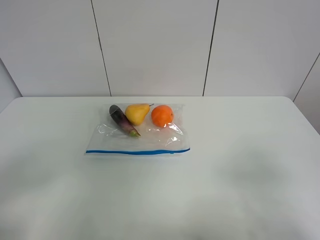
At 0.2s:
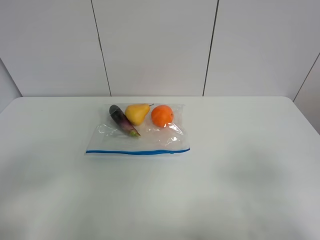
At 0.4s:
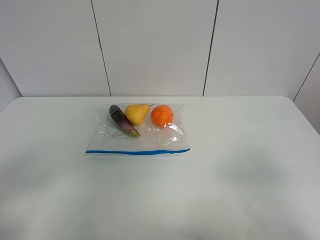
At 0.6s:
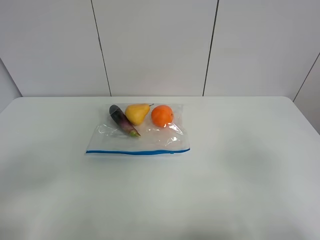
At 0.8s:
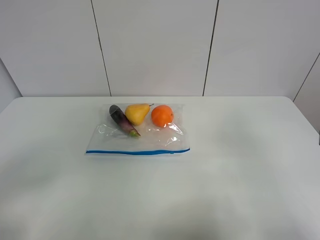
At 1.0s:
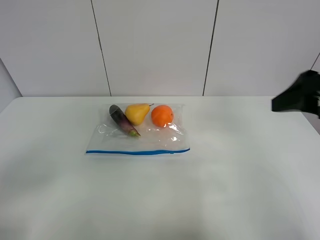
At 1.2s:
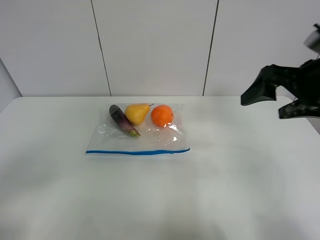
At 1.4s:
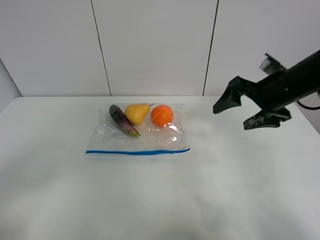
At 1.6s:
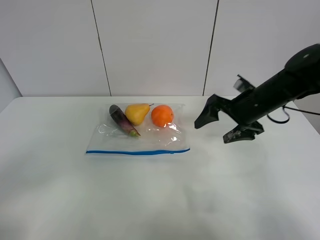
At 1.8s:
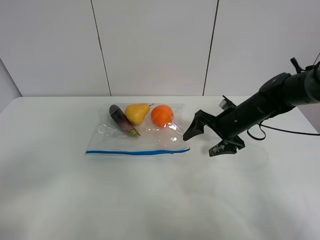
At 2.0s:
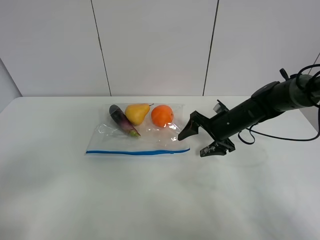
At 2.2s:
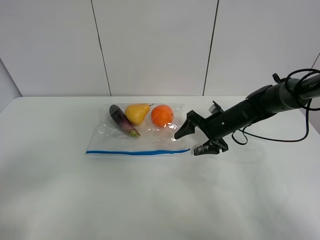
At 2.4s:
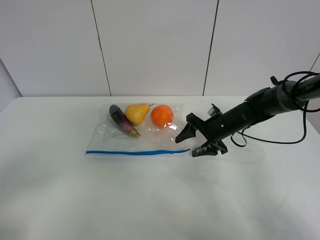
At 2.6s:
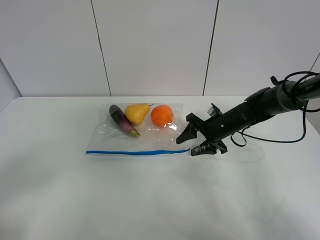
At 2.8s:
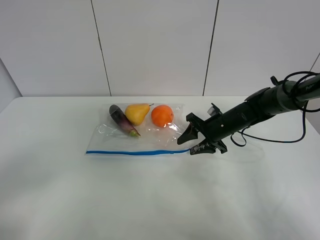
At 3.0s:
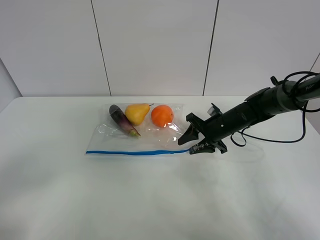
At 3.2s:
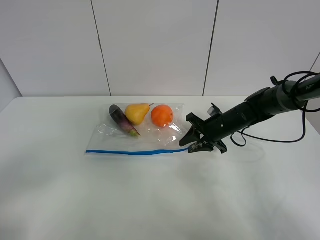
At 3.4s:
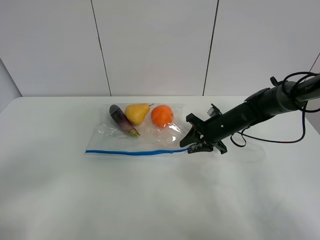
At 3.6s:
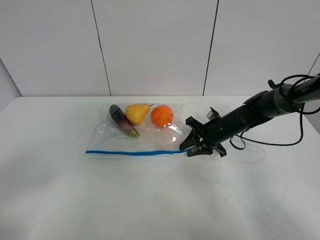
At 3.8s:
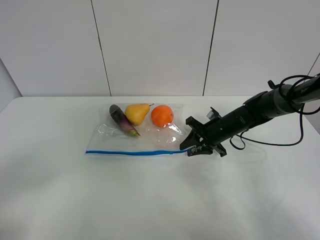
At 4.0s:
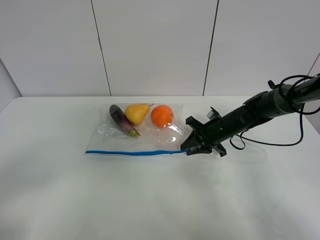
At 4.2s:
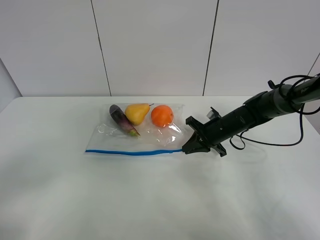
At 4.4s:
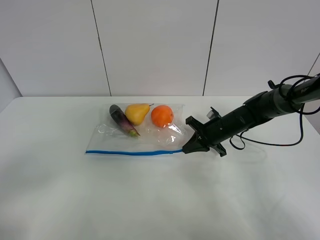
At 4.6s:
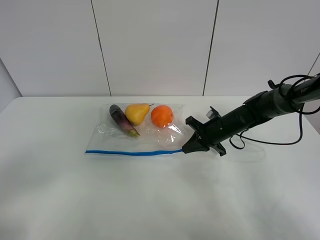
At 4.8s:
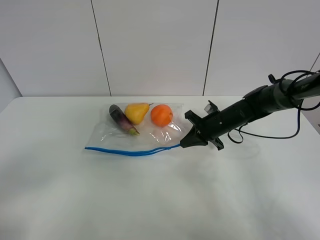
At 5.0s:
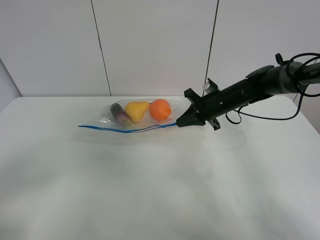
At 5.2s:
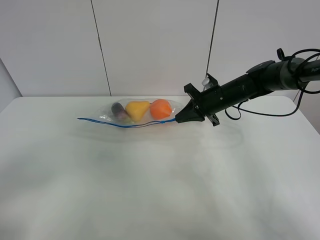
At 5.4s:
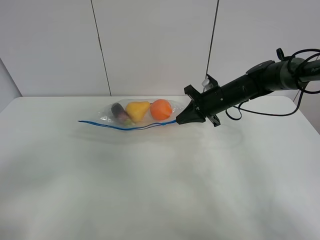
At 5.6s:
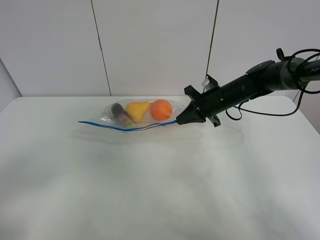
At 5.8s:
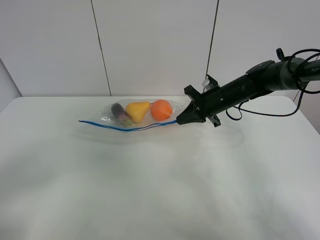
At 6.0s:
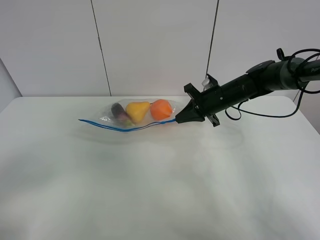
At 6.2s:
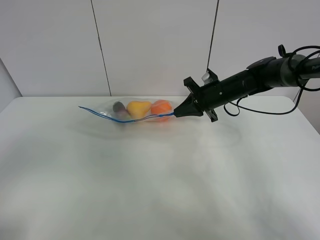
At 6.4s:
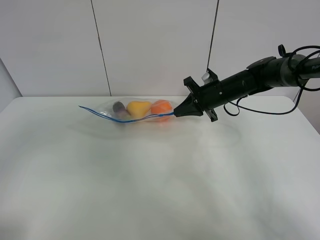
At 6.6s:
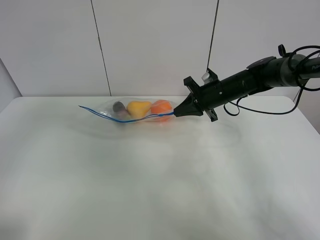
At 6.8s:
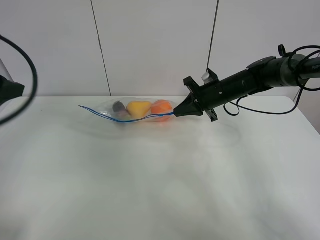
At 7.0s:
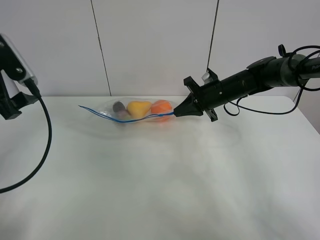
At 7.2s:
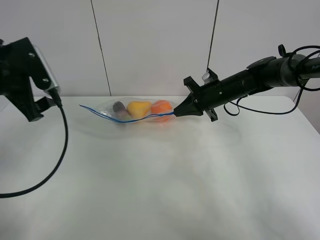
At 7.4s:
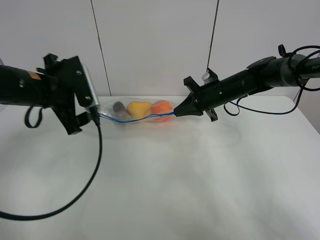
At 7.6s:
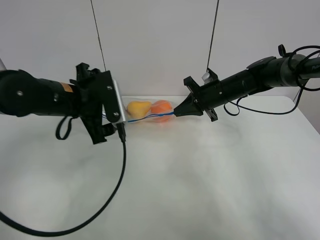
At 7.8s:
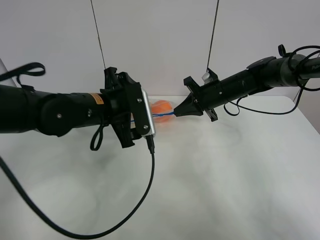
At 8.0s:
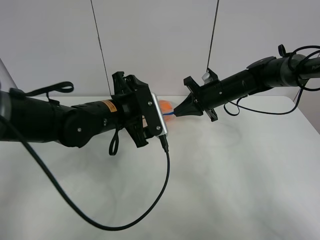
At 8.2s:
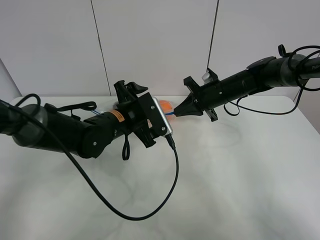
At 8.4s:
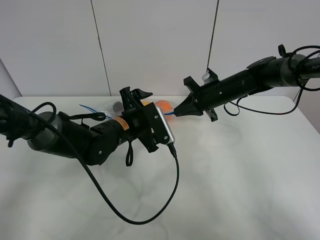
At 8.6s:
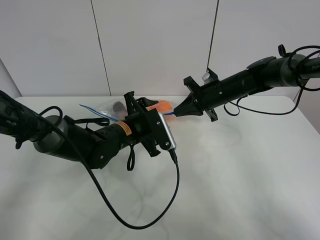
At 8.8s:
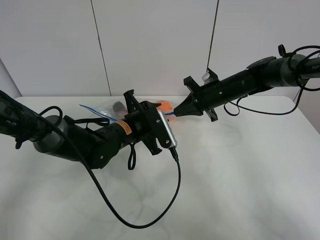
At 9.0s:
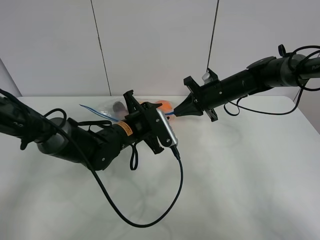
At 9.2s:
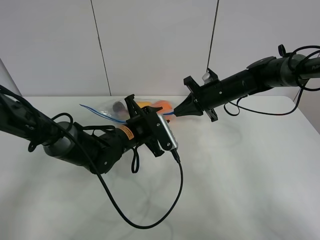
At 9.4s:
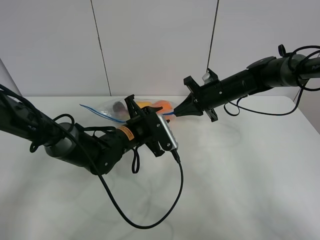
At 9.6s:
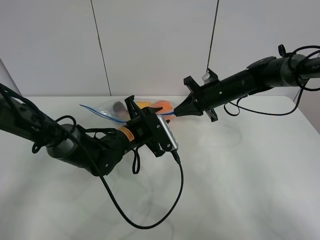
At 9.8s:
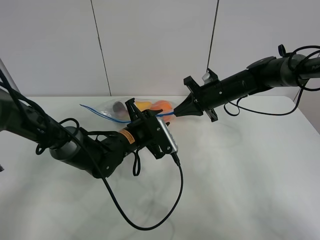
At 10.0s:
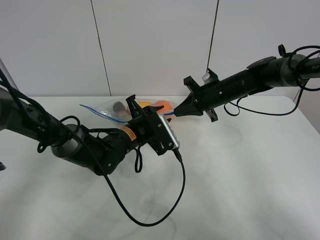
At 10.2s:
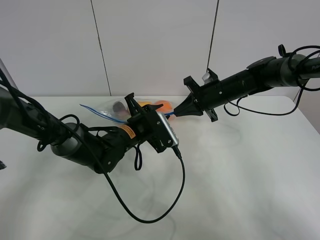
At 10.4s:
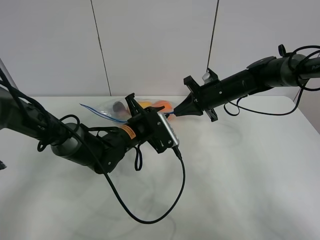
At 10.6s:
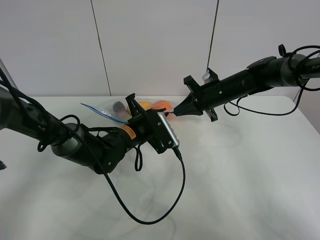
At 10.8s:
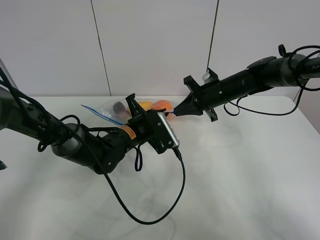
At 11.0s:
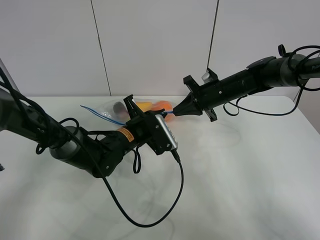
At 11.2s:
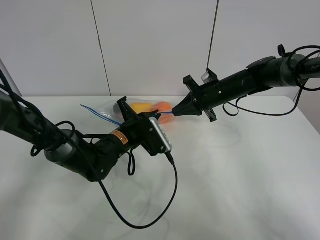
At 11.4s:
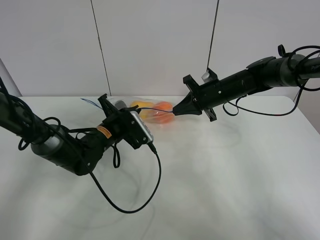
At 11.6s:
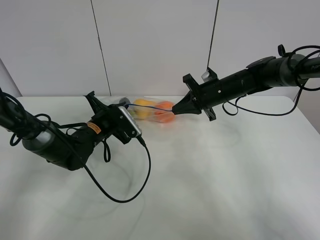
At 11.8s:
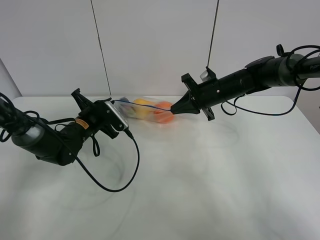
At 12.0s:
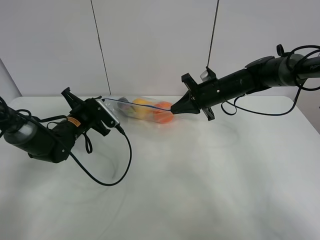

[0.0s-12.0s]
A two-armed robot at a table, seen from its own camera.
Step, 0.0s to 4.2s: Grasp the fruit bag with right gripper.
Step, 4.4s to 5.6s: Lift the fruit bag with your right gripper.
0.0s to 1.6s: The right gripper goes some 35 cm forward.
1.6s to 3.0s: The right gripper shifts approximately 10 cm downward, and closes up.
3.0s to 4.4s: The right gripper closes up.
4.4s to 6.0s: The right gripper is displaced upward by about 10 cm.
6.0s to 7.6s: The left gripper shifts approximately 35 cm forward and to the right.
7.6s to 9.0s: The left gripper heads downward and to the right, covering roughly 15 cm, and closes up.
9.0s to 10.4s: The grippers make only small movements.
10.4s to 12.0s: The left gripper shifts about 15 cm to the left.

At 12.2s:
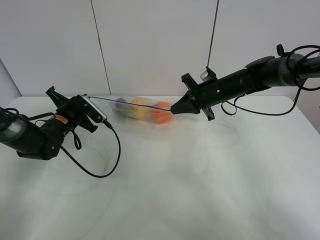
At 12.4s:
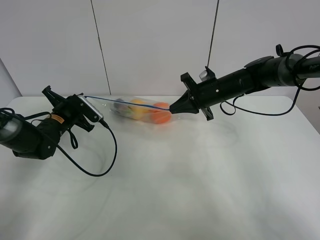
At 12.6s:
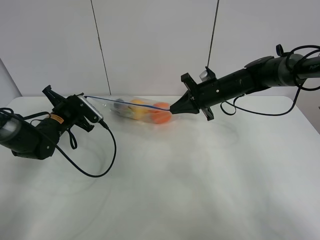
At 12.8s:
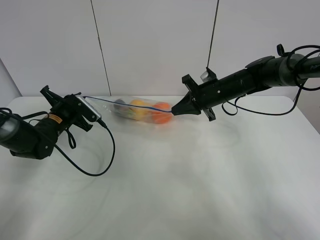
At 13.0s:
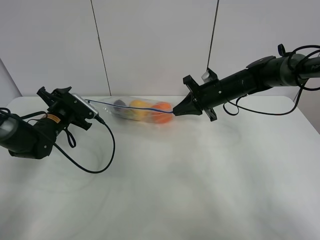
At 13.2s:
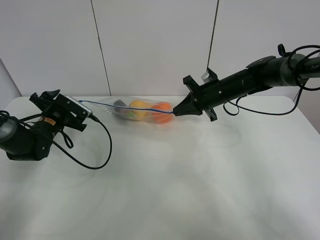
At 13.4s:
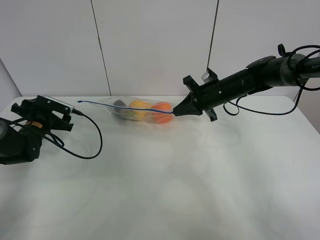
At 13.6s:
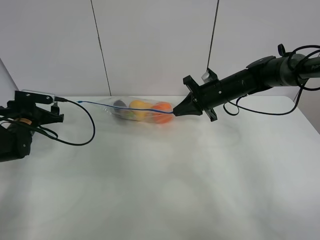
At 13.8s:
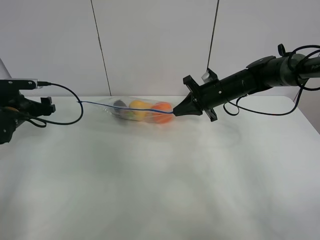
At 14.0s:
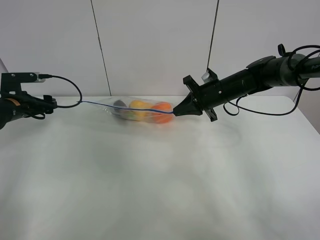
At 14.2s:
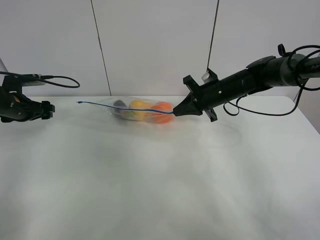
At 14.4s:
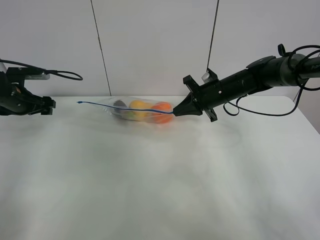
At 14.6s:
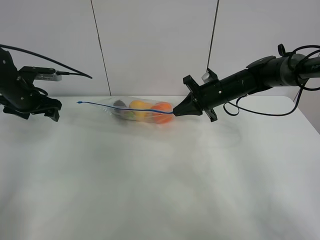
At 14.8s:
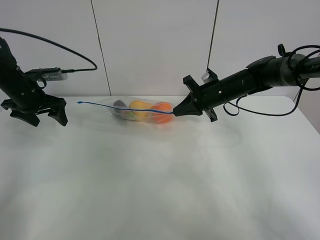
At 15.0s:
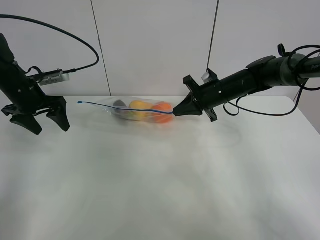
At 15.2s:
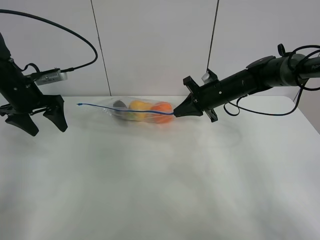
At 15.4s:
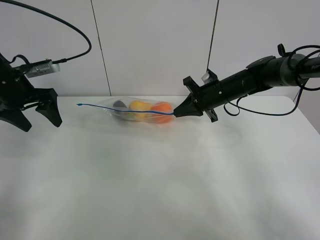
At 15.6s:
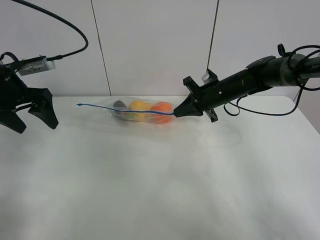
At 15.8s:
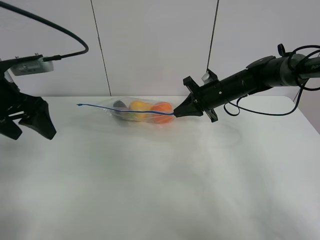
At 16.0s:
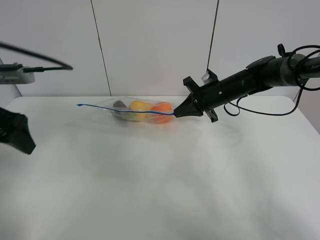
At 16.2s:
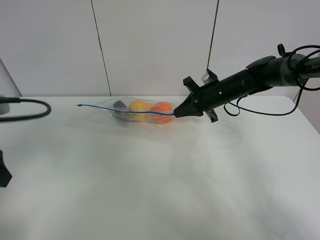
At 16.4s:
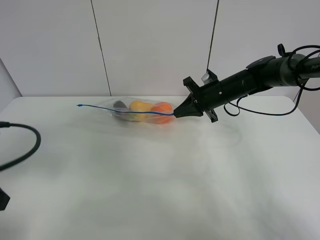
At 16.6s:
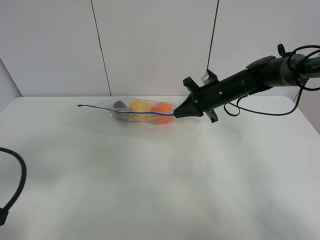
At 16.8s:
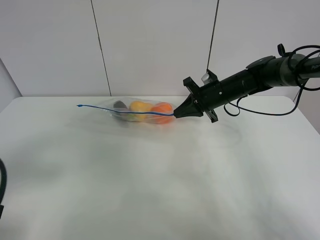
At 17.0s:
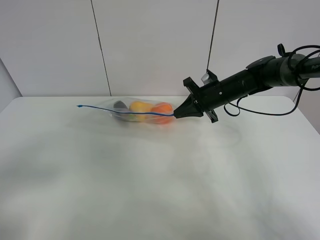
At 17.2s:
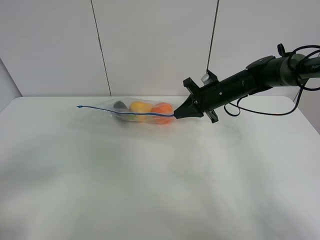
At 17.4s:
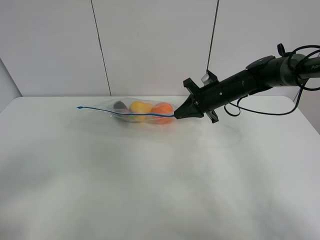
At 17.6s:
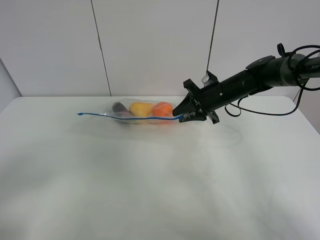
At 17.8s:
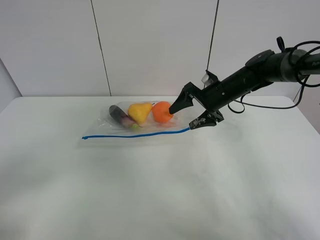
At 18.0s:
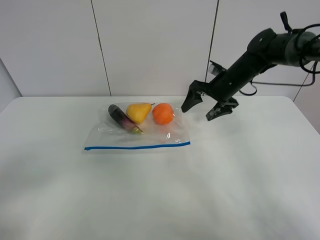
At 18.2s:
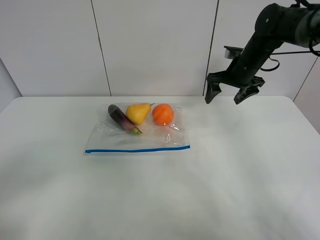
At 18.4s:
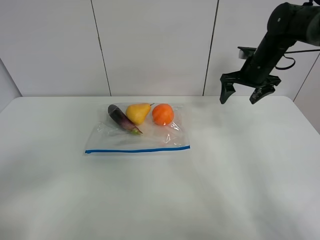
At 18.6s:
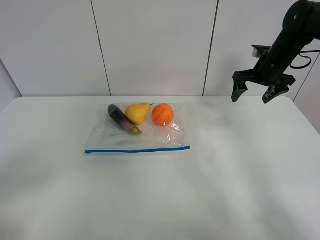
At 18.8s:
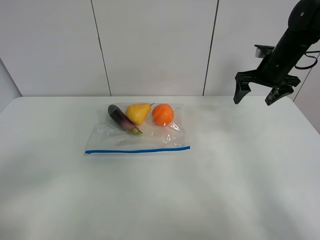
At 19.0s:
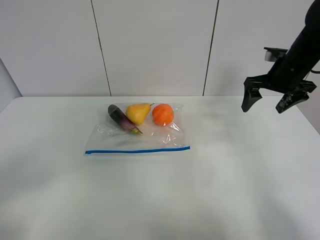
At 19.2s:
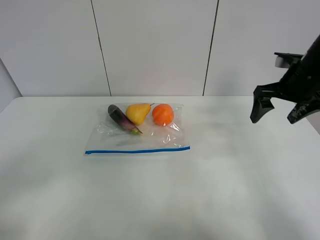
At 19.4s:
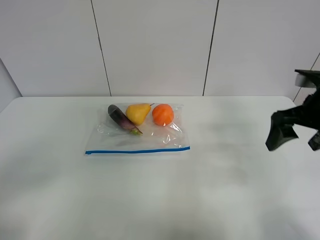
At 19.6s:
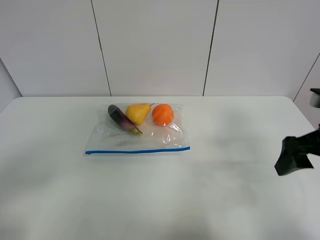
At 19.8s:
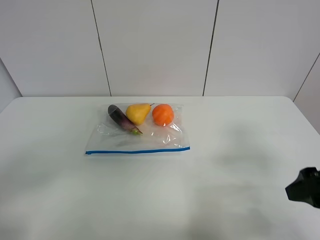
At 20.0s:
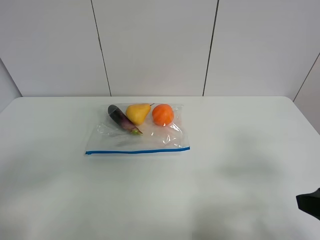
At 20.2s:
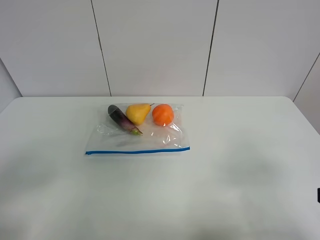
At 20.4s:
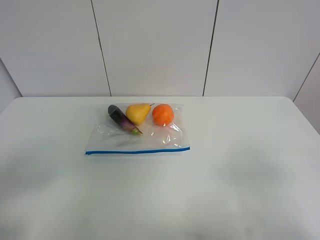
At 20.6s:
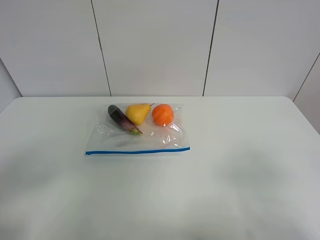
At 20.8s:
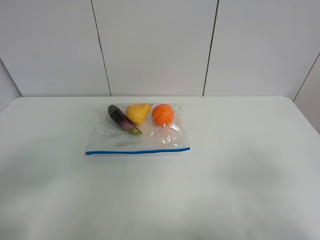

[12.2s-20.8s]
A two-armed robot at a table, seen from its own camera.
12.2s to 13.6s: The left gripper heads to the left, covering roughly 10 cm, and opens its fingers.
13.6s to 15.0s: The left gripper goes some 10 cm upward.
15.0s to 16.6s: The left gripper is displaced backward by some 30 cm.
16.6s to 18.0s: The right gripper opens its fingers; the left gripper shifts about 10 cm backward.
18.0s to 19.4s: The right gripper travels backward and to the right by approximately 20 cm.
19.4s to 20.8s: The right gripper travels backward by about 25 cm.

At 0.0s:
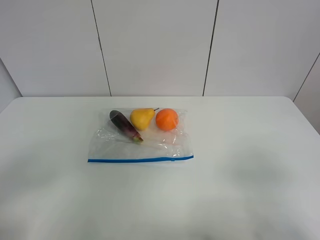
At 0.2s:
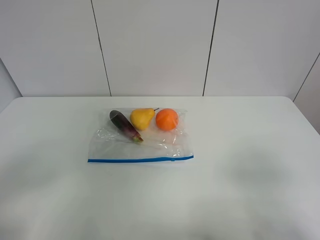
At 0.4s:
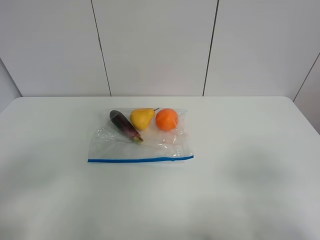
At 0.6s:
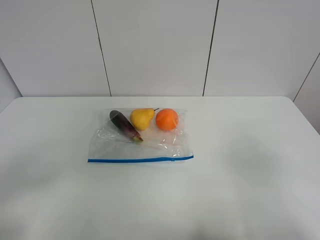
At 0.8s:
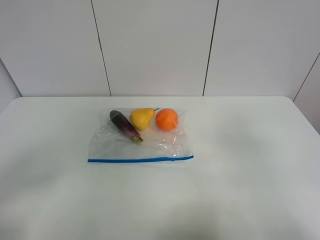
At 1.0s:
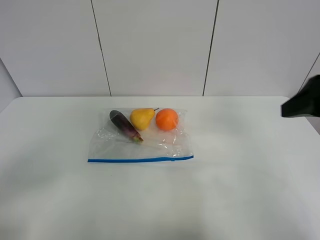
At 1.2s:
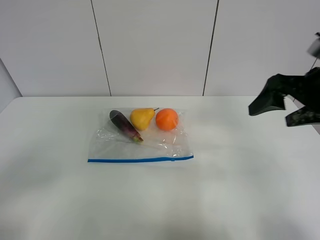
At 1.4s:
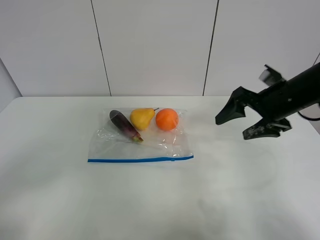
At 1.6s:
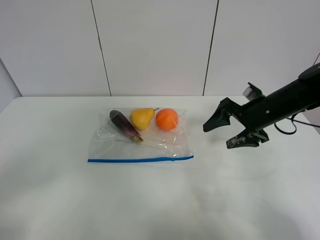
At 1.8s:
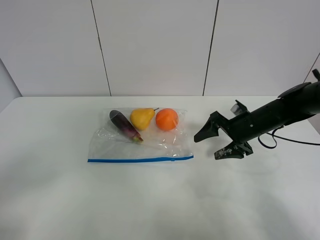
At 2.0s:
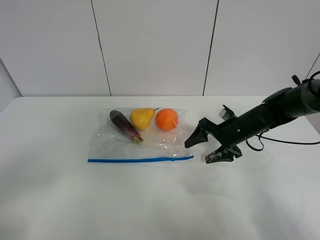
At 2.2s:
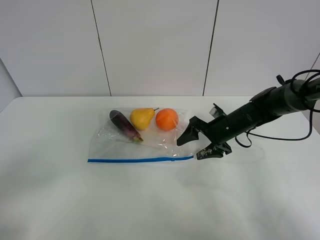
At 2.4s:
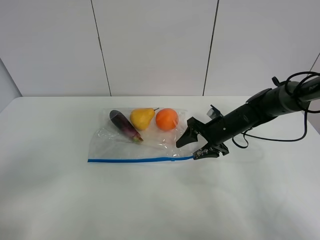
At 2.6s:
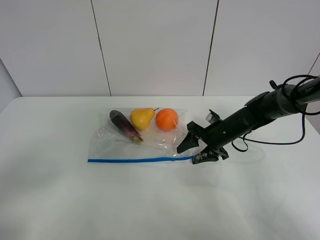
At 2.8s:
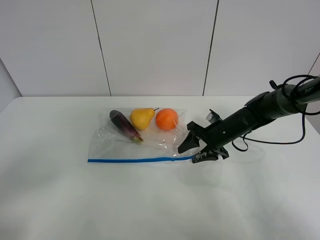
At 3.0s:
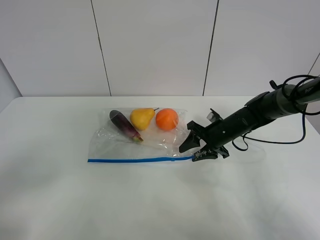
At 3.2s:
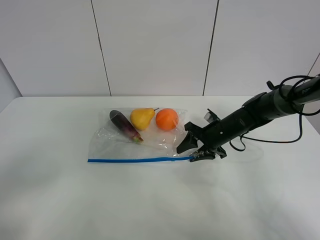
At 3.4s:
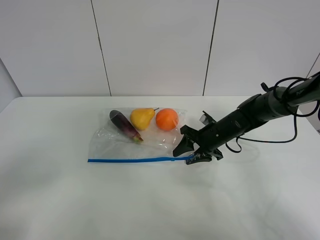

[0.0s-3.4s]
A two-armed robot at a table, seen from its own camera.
0.0s to 1.6s: The right gripper goes some 35 cm forward.
1.6s to 3.4s: The right gripper goes about 10 cm downward and to the left.
